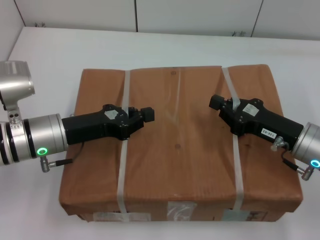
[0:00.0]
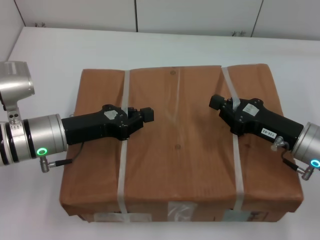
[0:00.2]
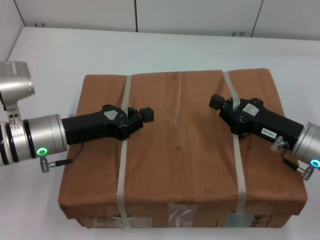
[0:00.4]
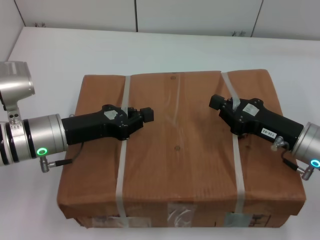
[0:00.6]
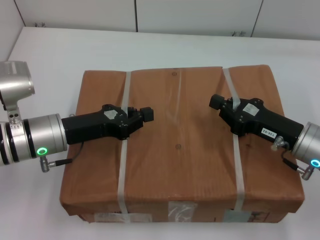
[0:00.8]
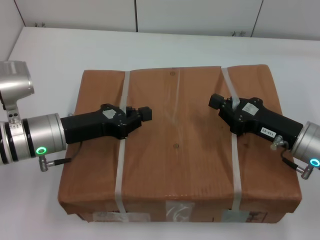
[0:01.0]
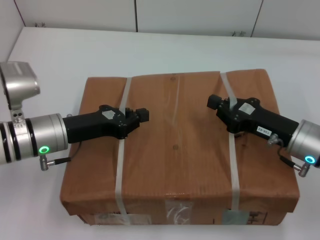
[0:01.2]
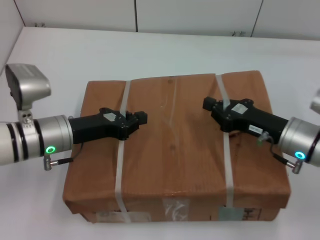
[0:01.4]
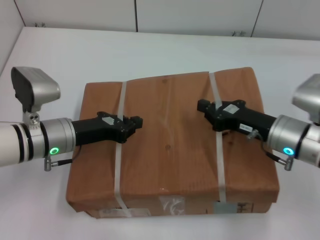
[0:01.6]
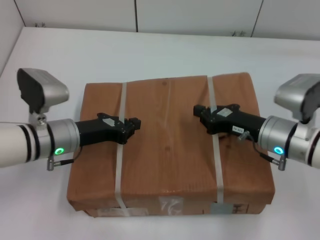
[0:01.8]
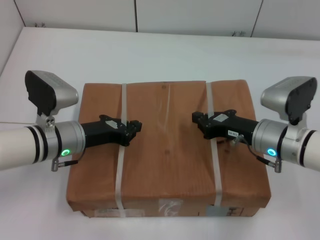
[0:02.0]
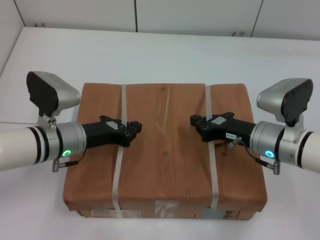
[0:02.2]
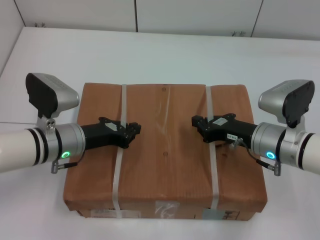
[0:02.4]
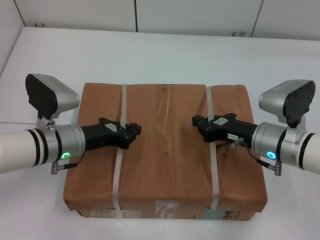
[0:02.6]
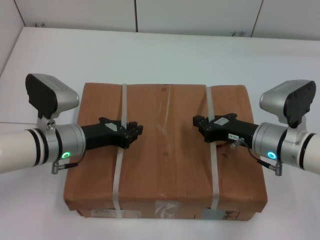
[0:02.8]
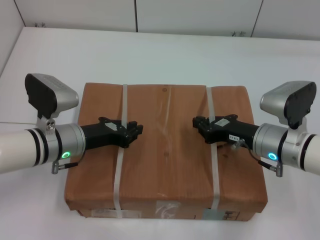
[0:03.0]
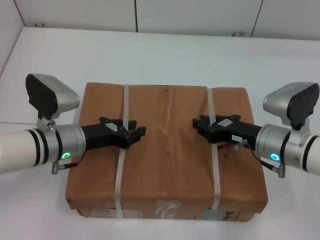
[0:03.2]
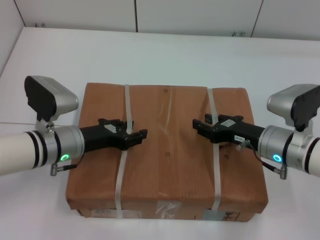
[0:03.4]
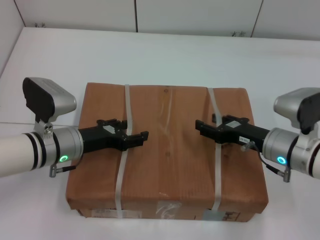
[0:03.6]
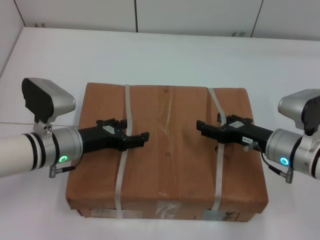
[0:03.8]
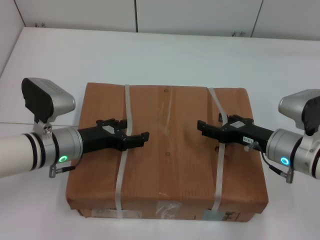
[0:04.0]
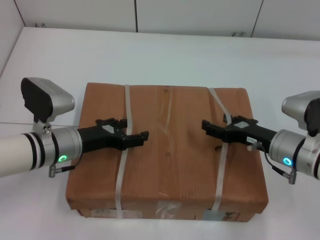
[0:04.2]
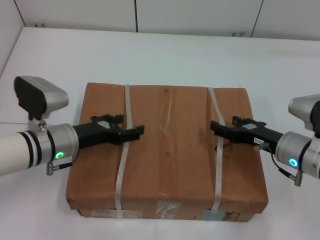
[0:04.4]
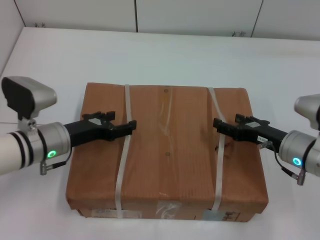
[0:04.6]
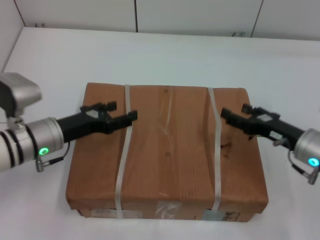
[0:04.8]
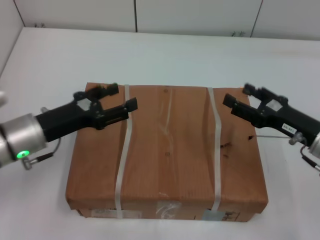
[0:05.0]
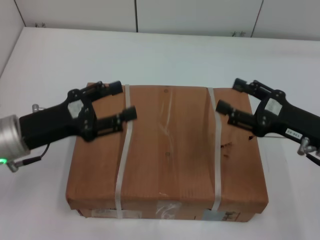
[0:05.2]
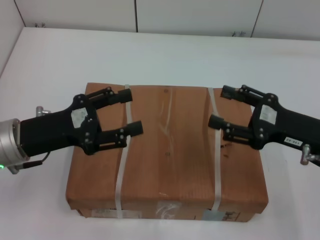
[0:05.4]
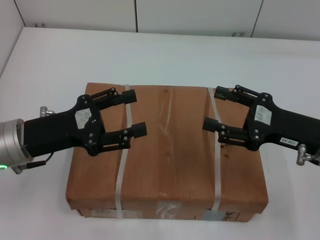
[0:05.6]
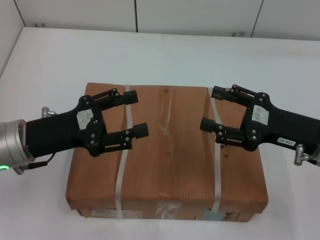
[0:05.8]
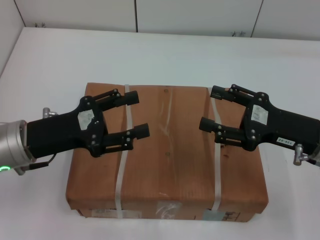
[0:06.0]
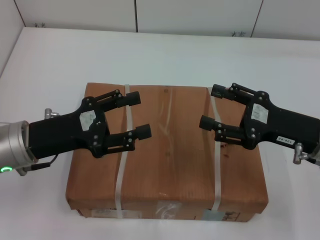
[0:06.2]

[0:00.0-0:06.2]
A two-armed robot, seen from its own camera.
Task of the whole recording: place the box on the table with both arms.
Step, 0:00.0 to 0:03.0: Place the box on the table with left gripper.
Step, 0:00.0 to 0:03.0: Place the box on the table with right gripper.
Step, 0:03.2 to 0:04.2: Loosen the box on the table with left gripper.
Step, 0:03.2 to 0:04.2: Loosen the box on the table with right gripper.
0:03.2 to 0:04.6: The right gripper opens up; the left gripper opens.
0:04.6 to 0:06.2: The left gripper is displaced upward and backward by some 10 cm; the right gripper goes approximately 10 cm upward.
